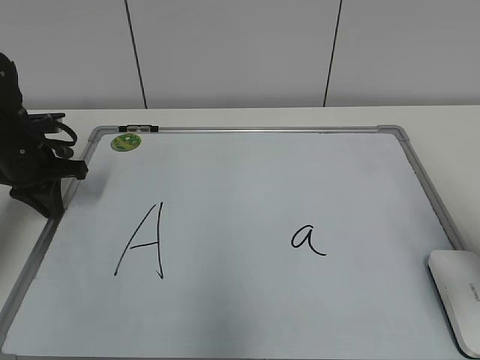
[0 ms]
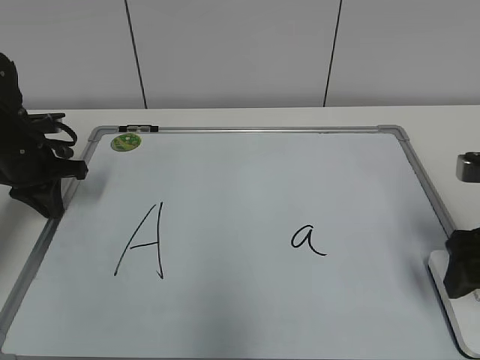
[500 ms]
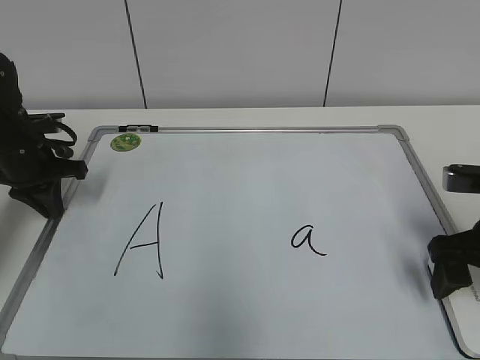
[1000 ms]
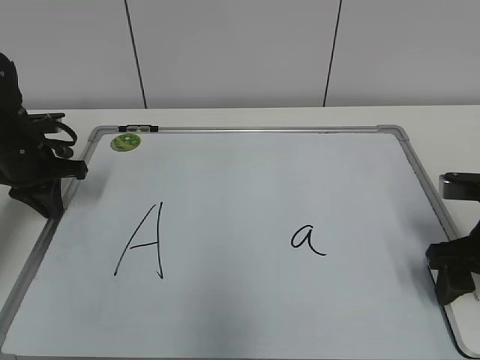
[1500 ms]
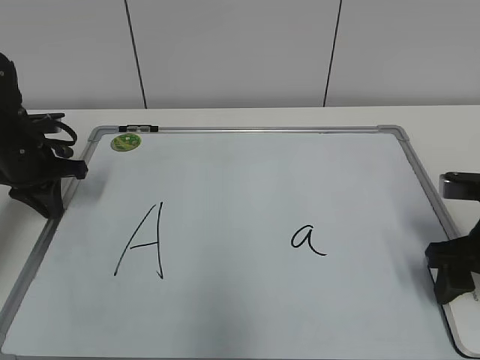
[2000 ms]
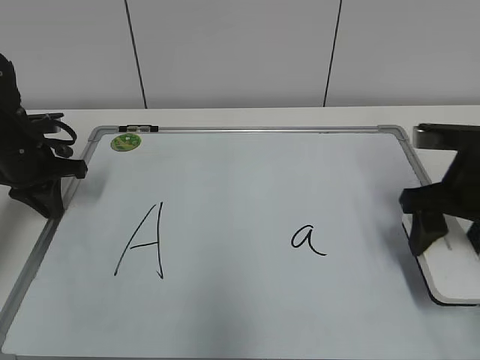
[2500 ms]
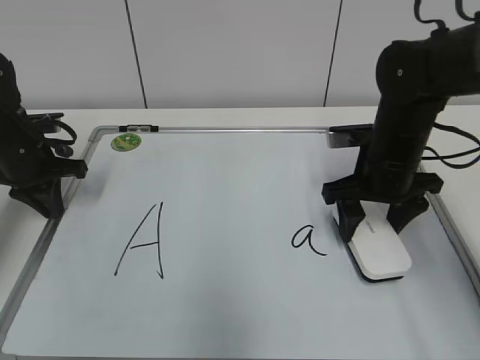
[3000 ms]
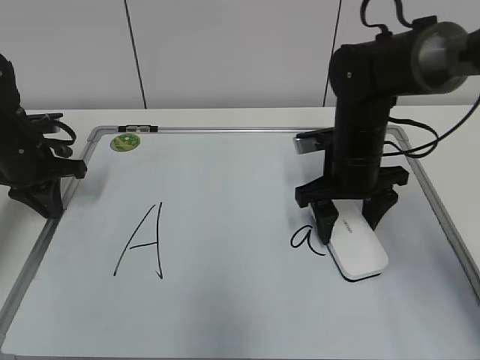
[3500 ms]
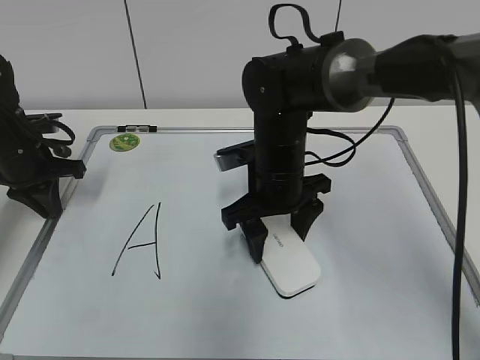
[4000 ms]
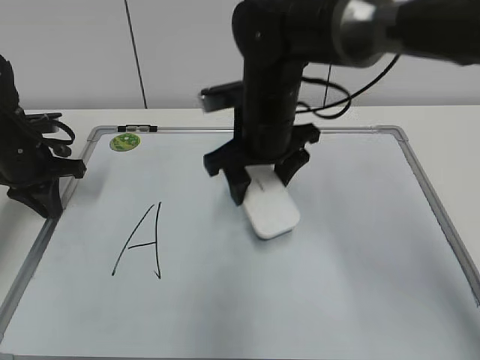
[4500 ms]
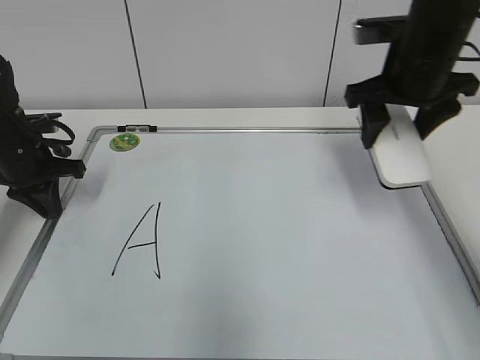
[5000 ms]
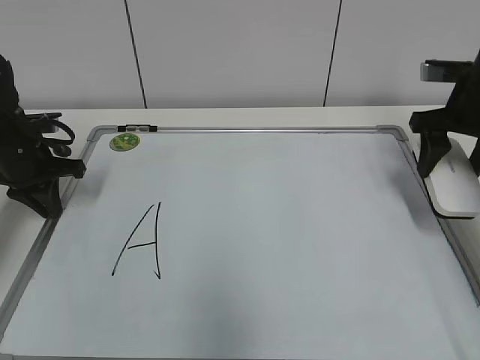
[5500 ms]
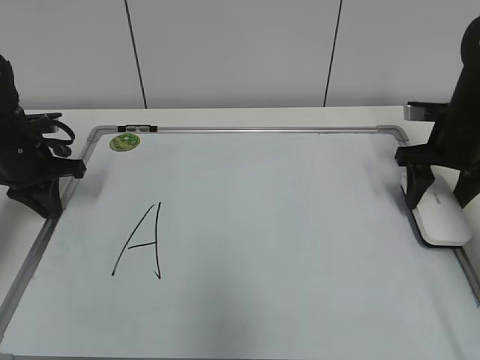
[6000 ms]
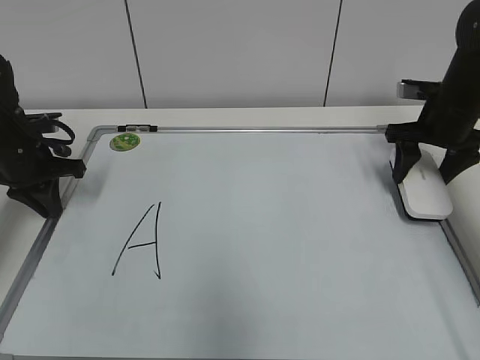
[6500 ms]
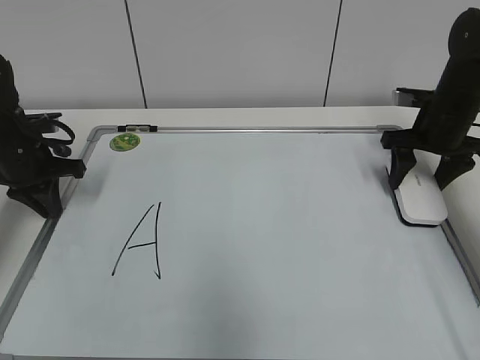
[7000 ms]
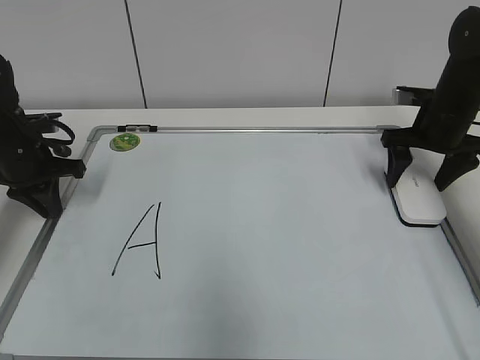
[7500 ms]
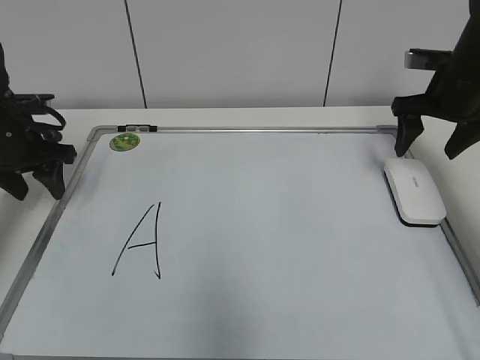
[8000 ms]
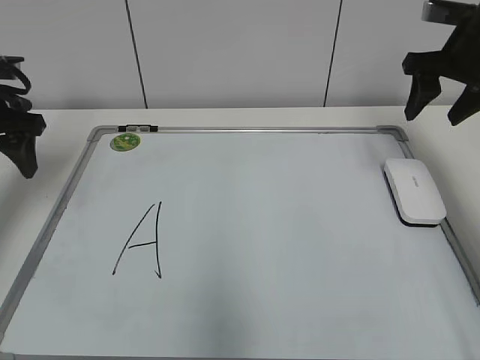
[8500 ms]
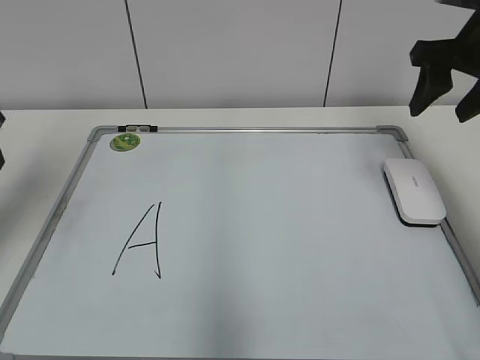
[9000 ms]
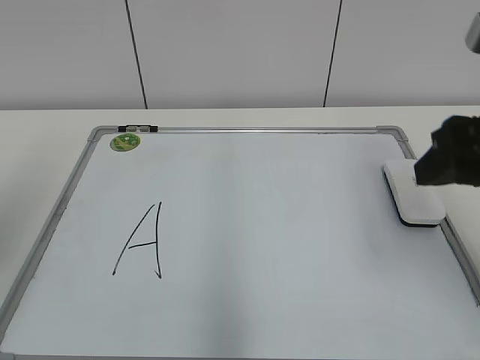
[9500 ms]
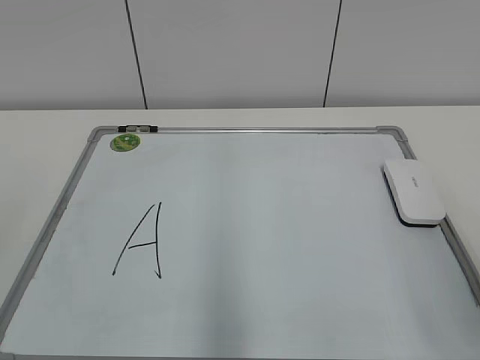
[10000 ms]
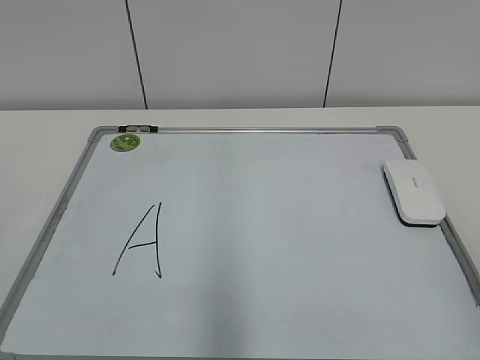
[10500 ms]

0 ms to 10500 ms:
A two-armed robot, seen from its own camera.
Task of the whole recording: pick up the eraser on the blackboard and erase the letter "a".
Step, 2000 ms to 4000 ms: Erase the letter a with your right hand.
Step, 4500 ms to 7500 ms: Put down the eraser with your right hand.
0 ms to 2000 ms: The right gripper heads downward and forward, covering roughly 10 cm, and closes up.
2000 ms to 4000 ms: The right gripper shifts roughly 25 cm to the left and forward.
4000 ms to 6500 ms: The right gripper goes about 25 cm to the right.
6500 ms to 8500 ms: The grippers both shift upward by some 10 cm. The left gripper opens up; the right gripper opens, then closes again.
8500 ms to 10500 ms: The two grippers go some 40 cm backward.
